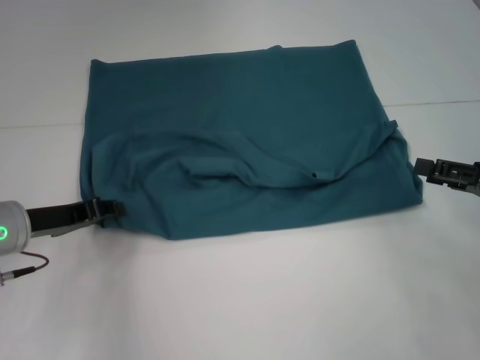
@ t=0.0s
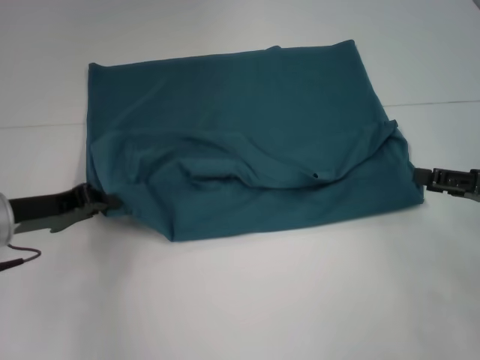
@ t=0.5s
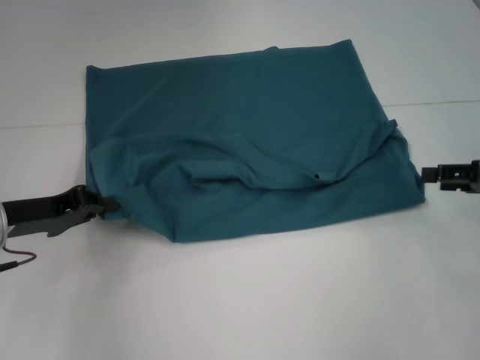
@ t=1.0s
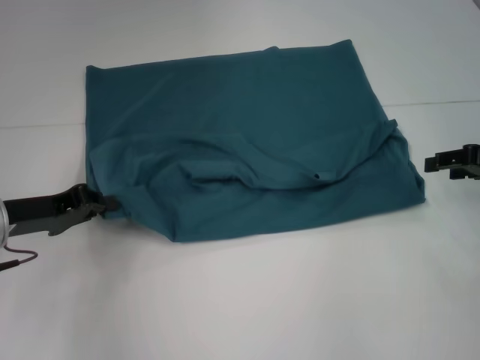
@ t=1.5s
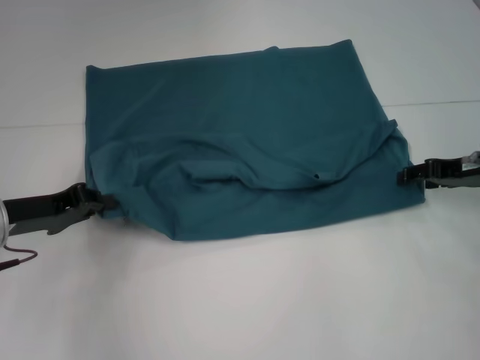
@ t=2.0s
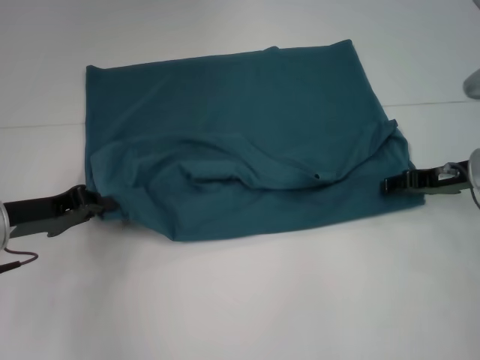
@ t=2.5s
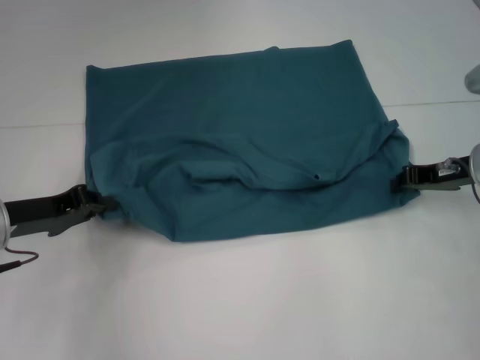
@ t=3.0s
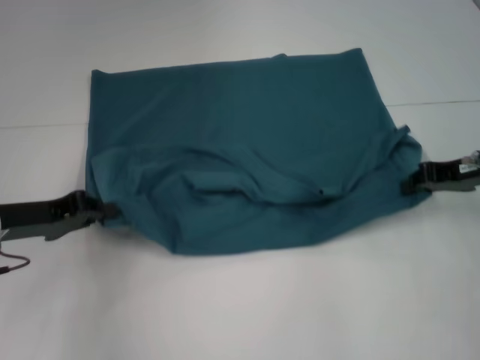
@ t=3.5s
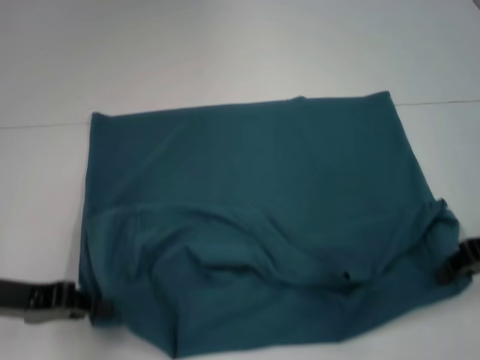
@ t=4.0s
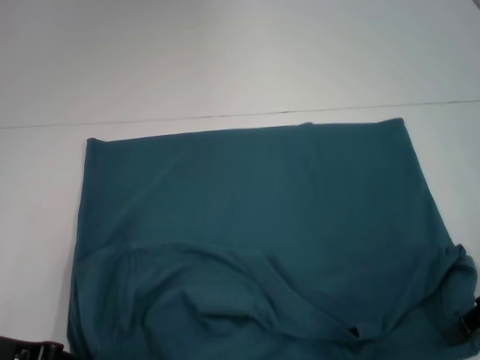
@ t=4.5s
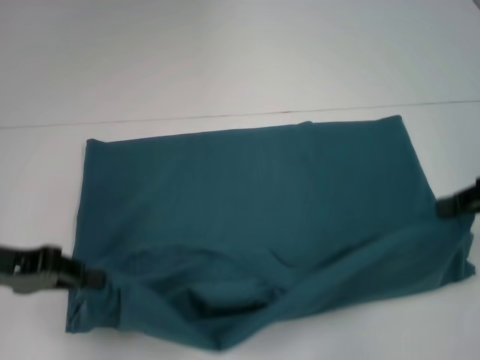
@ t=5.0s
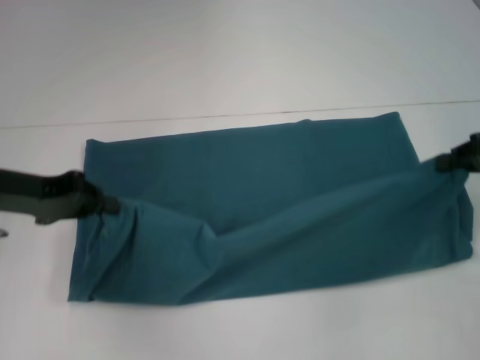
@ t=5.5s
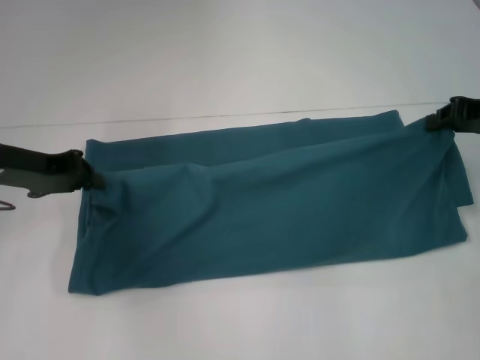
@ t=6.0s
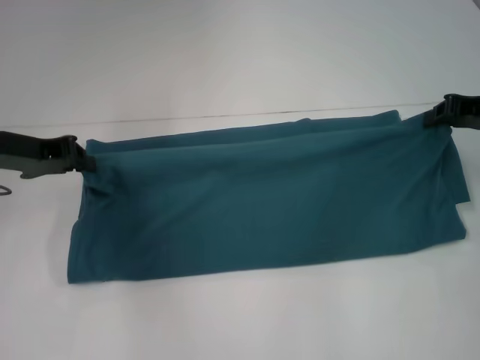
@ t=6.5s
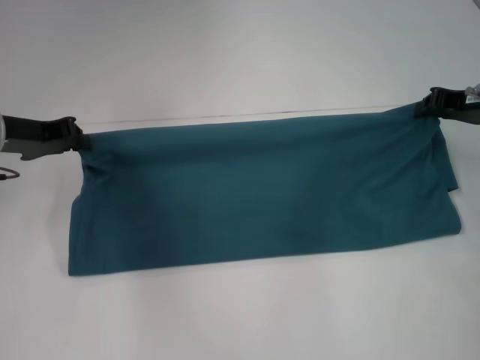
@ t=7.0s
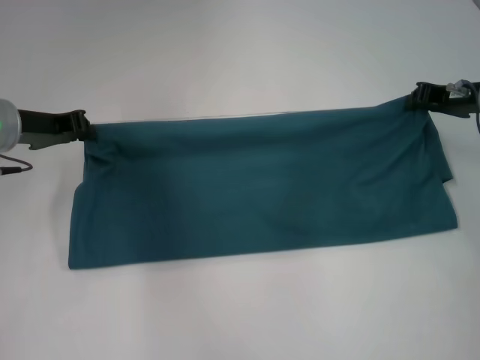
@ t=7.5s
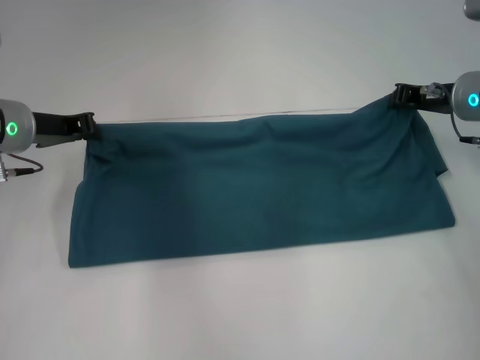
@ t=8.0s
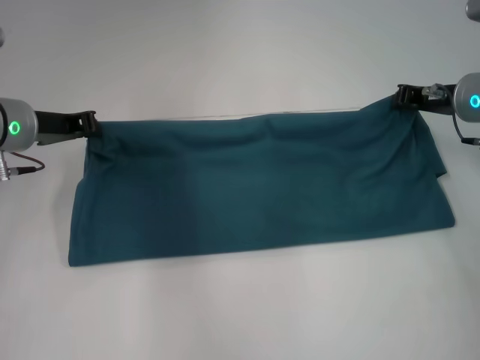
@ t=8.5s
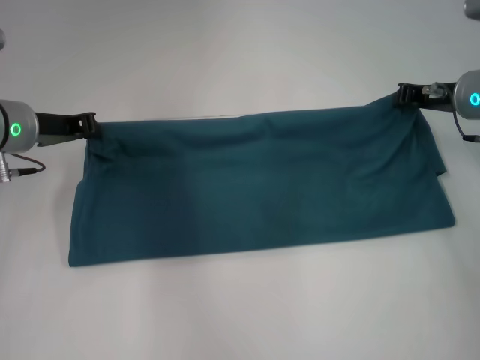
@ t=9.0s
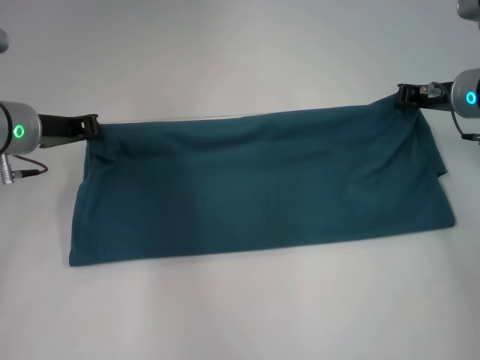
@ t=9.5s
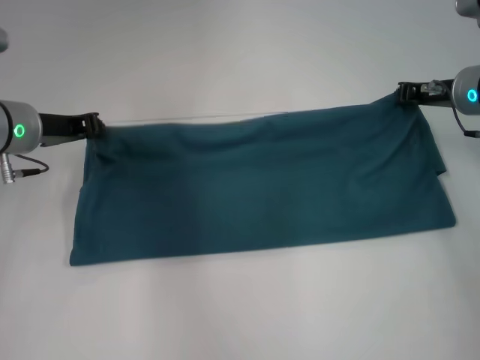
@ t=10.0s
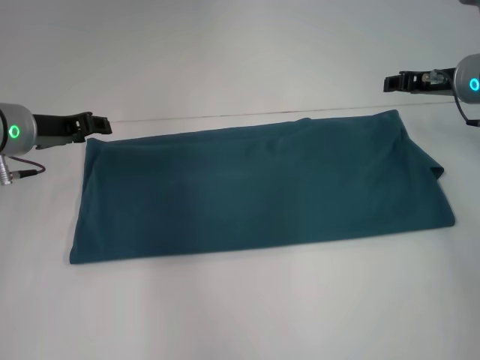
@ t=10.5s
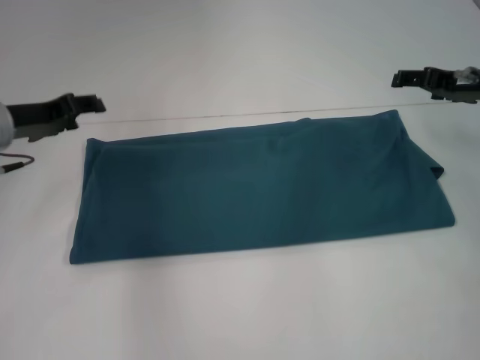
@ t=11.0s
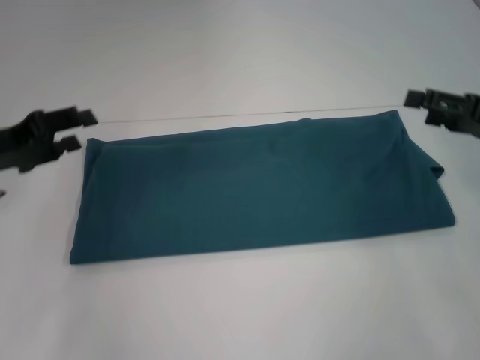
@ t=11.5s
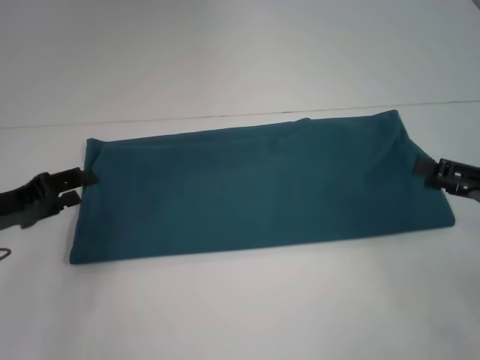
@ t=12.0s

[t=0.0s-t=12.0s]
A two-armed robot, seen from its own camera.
Step, t=0.0s to t=4.5s: Pull the clothes with your left hand.
Step, t=0.0s to t=4.5s: Pull the clothes with your right hand.
Step, t=5.0s to t=10.0s: Fold the clothes to the left.
Step, t=5.0s to t=10.0s: Fold the clothes to the right.
t=0.0s to t=2.0s: The right gripper goes about 10 cm forward, while the left gripper closes its fingers.
t=2.0s to t=4.0s: Both grippers travel together backward, roughly 5 cm. The right gripper closes its fingers.
t=4.0s to t=6.0s: The left gripper heads forward, covering some 10 cm, while the right gripper heads forward, covering about 5 cm.
t=6.0s to t=8.0s: The right gripper heads to the left and forward, covering about 10 cm, while the left gripper changes place by about 5 cm.
t=8.0s to t=10.0s: The grippers move only a little.
t=10.0s to t=12.0s: The left gripper shifts some 15 cm backward, to the left and downward, and opens. The right gripper goes approximately 20 cm backward and to the right, and opens its fingers.

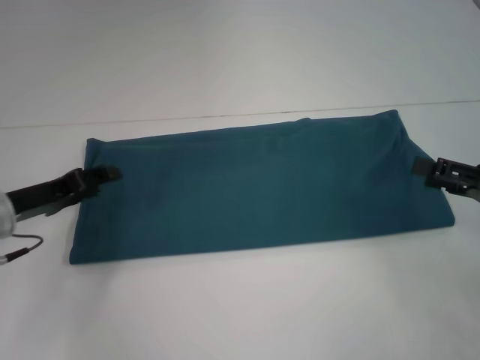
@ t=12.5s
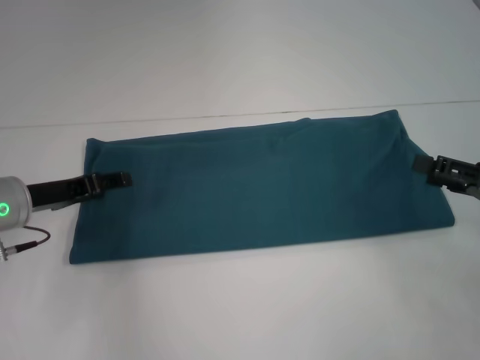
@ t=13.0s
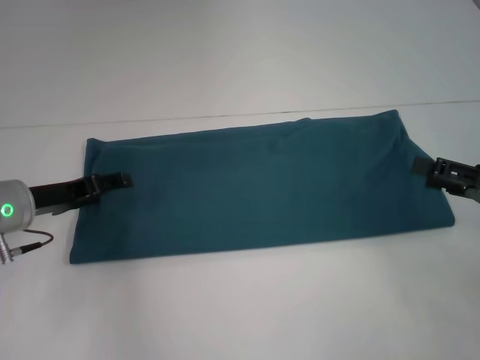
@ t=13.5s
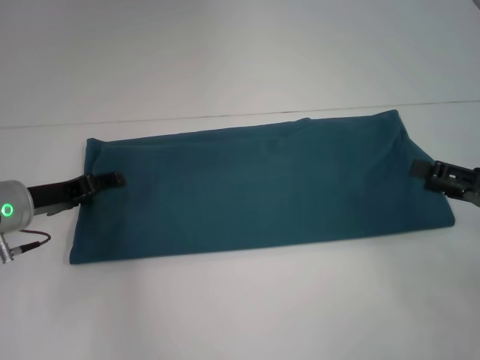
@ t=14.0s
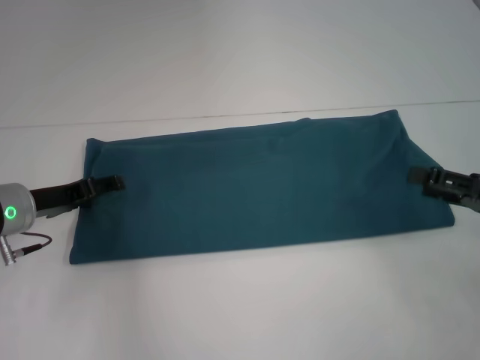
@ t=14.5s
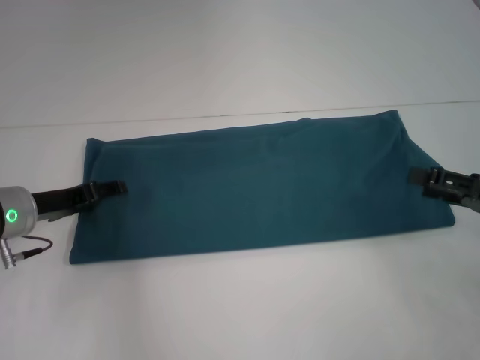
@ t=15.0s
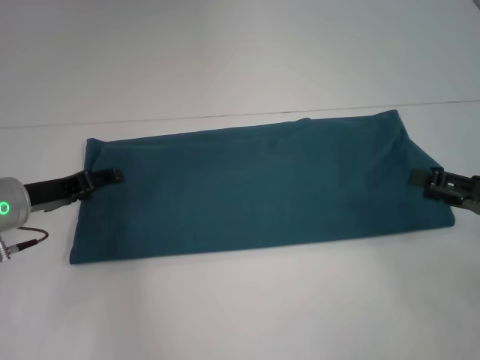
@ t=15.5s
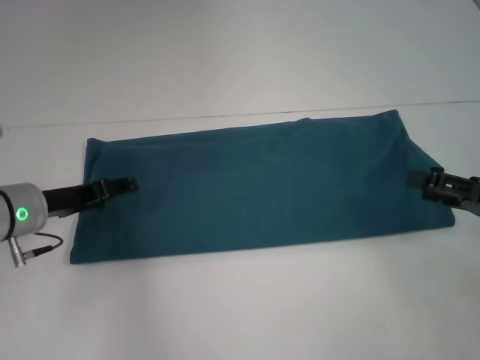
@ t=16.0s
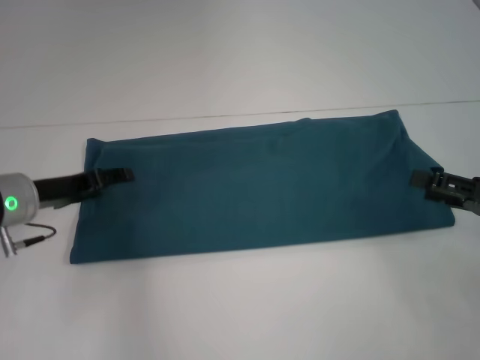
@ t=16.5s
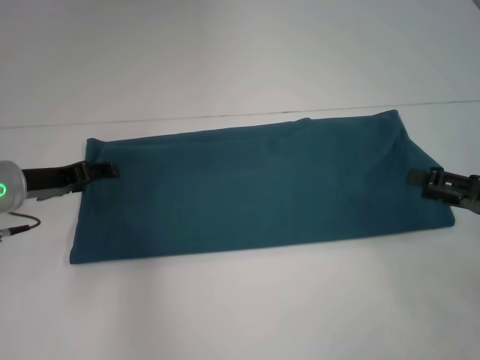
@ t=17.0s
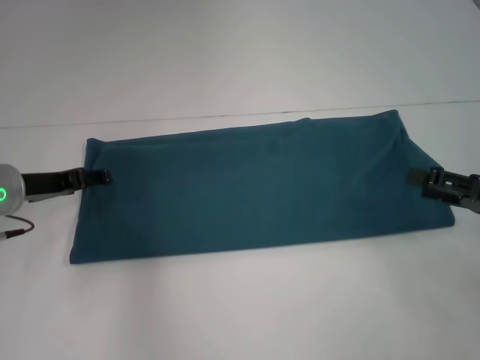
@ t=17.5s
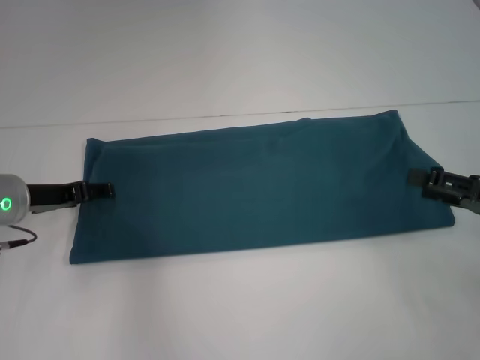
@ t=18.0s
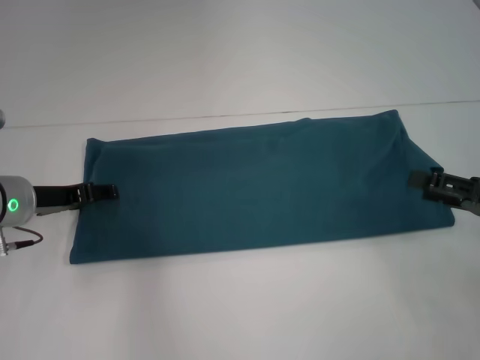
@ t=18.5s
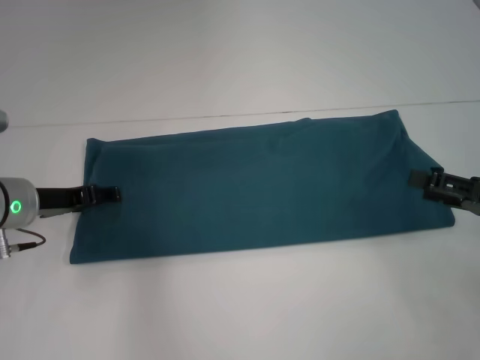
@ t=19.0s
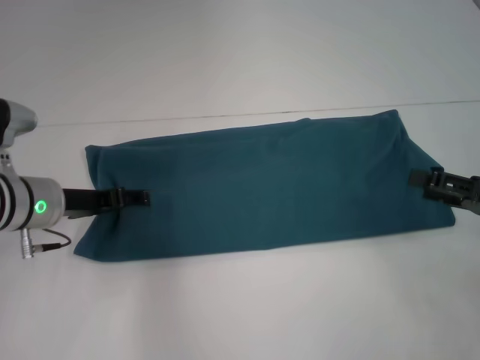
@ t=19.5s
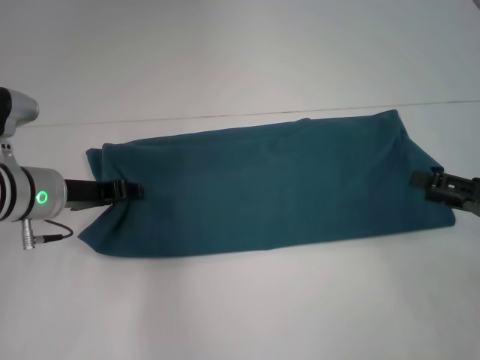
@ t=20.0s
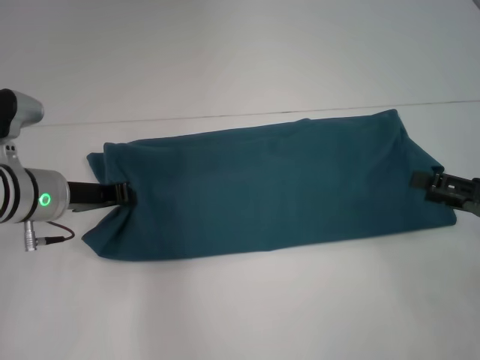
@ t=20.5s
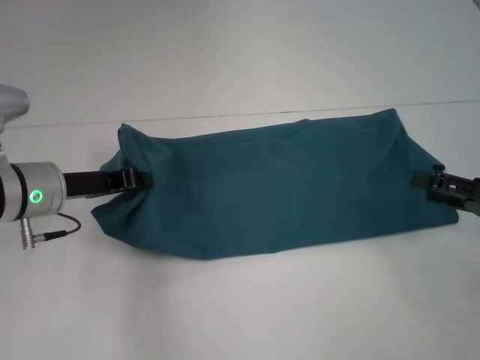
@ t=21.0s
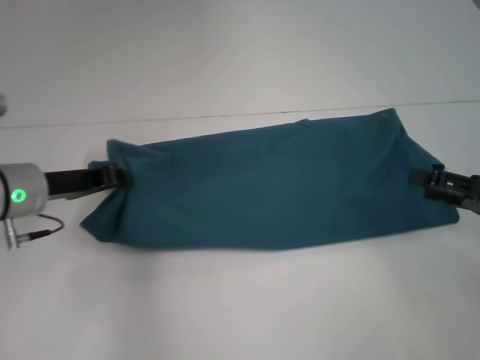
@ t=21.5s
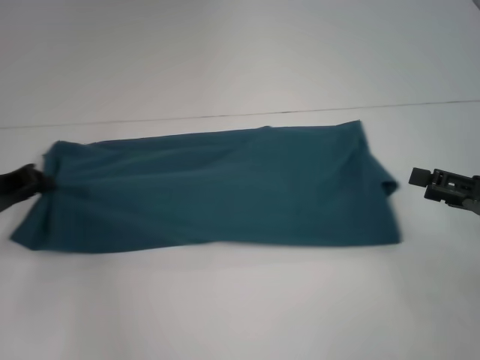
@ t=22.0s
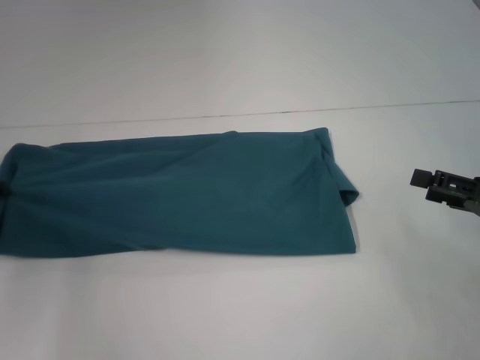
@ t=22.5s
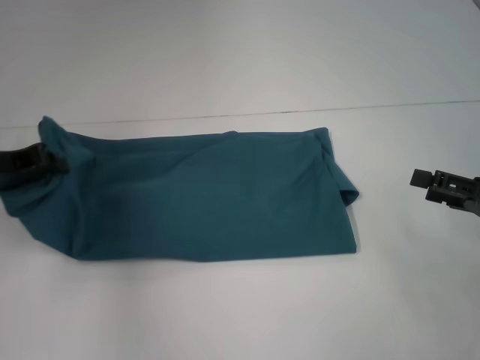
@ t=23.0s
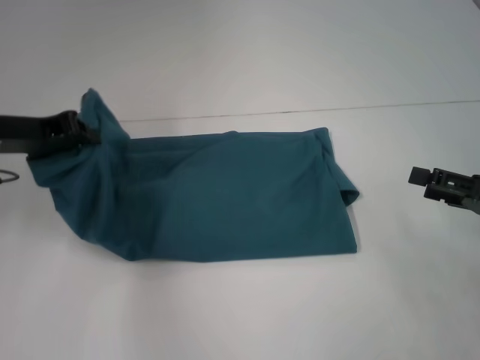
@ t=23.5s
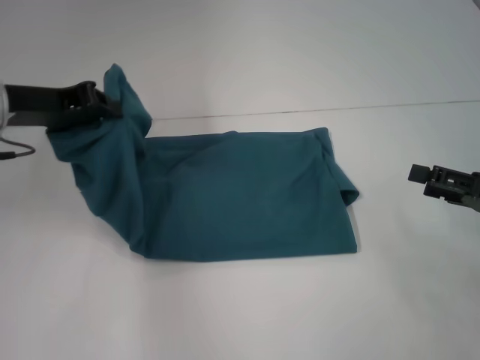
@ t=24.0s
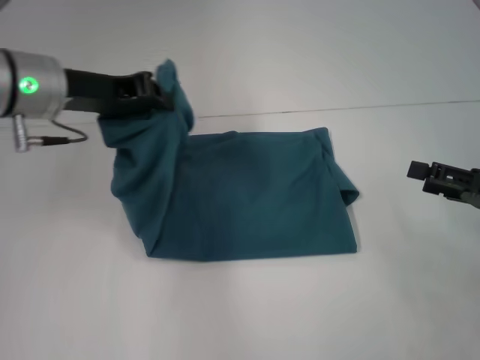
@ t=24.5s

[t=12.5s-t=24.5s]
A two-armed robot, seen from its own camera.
t=12.5s to t=16.5s: The grippers stay close to where they were, moving slightly.
t=16.5s to t=18.5s: There are only small adjustments of the grippers.
t=18.5s to t=20.5s: The left gripper closes up.
t=20.5s to t=22.5s: The left gripper shifts some 15 cm to the left.
t=22.5s to t=24.5s: The left gripper travels to the right and upward by about 20 cm.

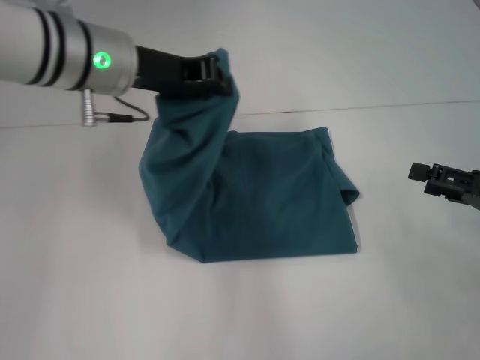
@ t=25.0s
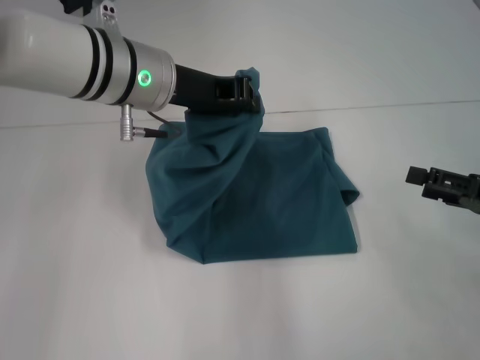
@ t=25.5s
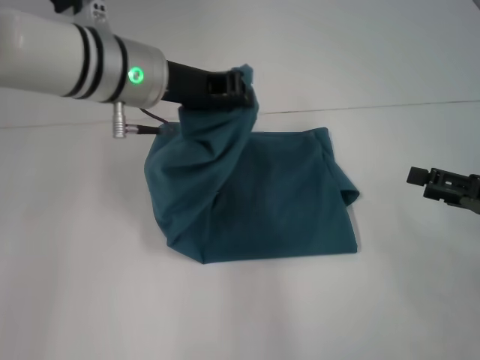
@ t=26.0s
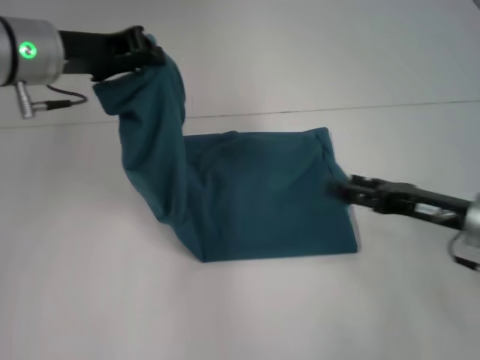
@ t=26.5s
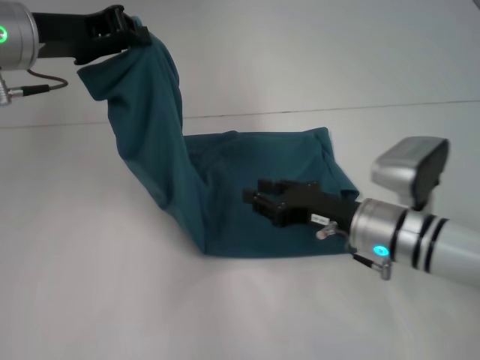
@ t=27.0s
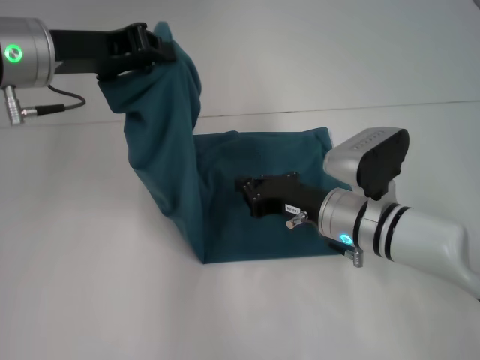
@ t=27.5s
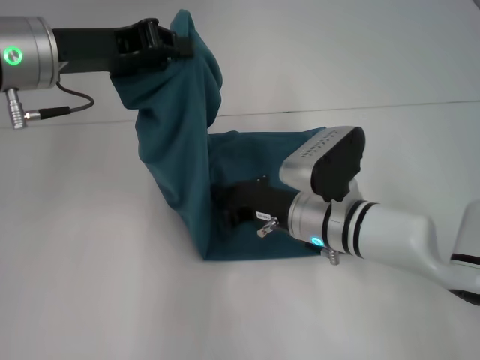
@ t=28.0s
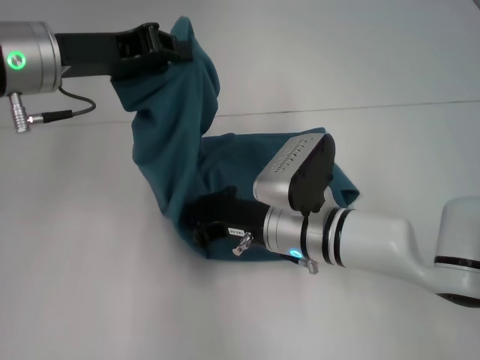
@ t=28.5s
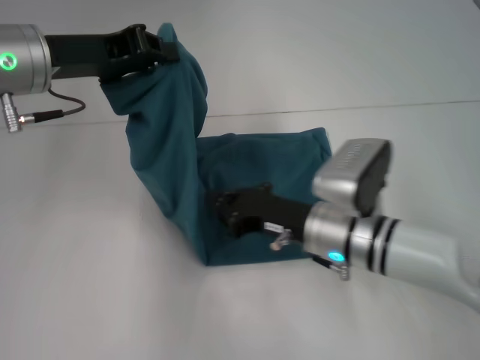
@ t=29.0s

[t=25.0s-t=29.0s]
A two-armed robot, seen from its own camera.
t=25.0s to t=27.0s: The right gripper shifts about 20 cm to the left, and closes its fingers. The left gripper goes about 10 cm to the left.
t=27.0s to t=29.0s: The right gripper closes its fingers.
